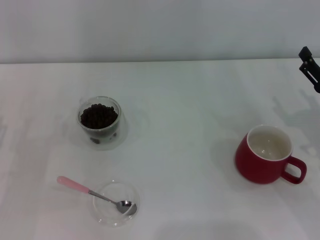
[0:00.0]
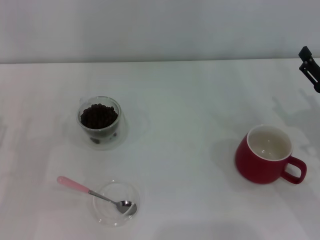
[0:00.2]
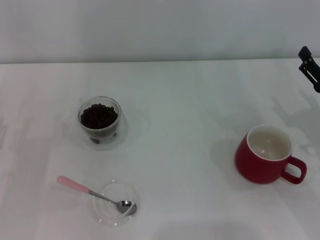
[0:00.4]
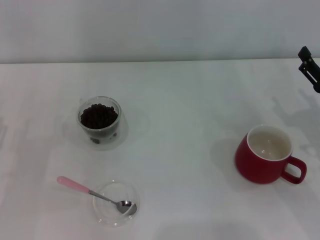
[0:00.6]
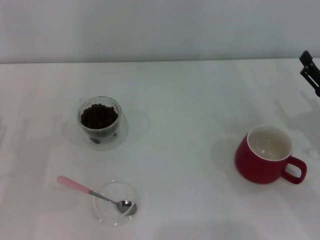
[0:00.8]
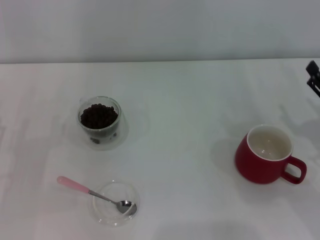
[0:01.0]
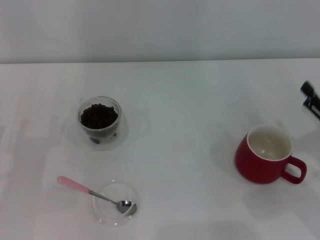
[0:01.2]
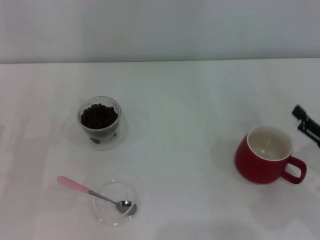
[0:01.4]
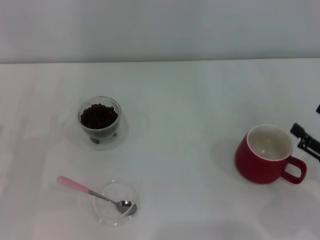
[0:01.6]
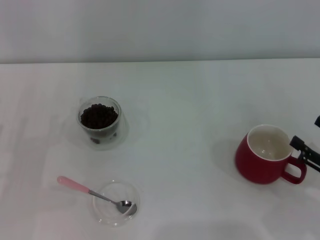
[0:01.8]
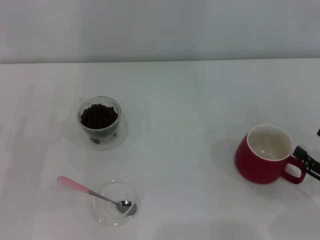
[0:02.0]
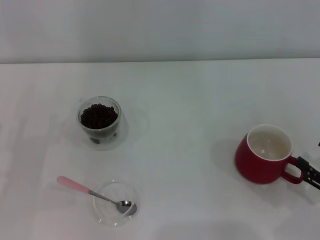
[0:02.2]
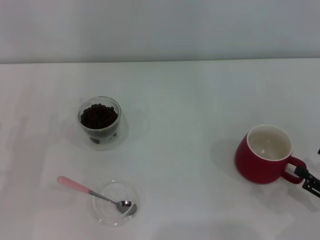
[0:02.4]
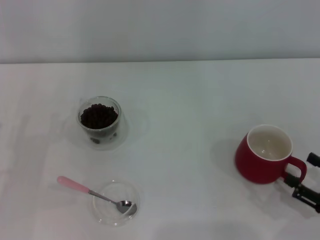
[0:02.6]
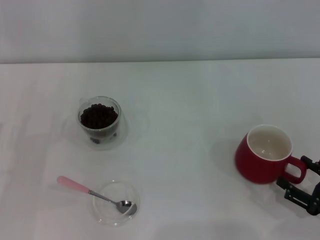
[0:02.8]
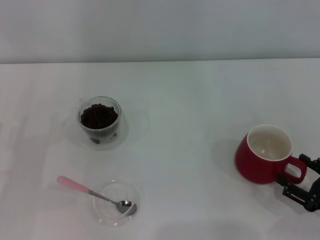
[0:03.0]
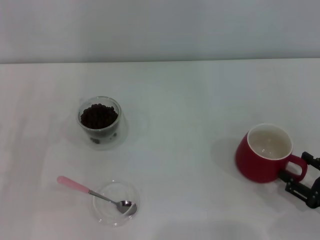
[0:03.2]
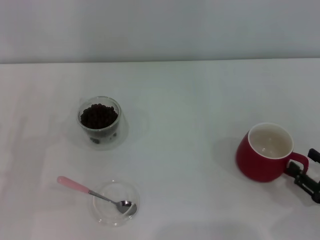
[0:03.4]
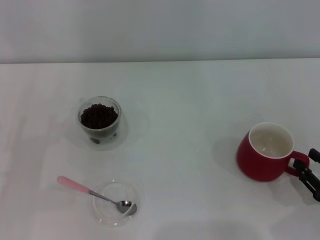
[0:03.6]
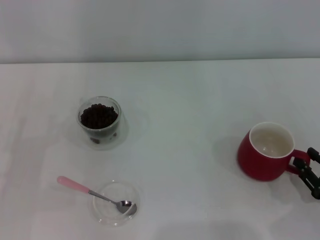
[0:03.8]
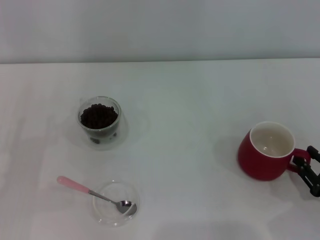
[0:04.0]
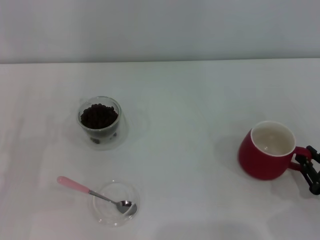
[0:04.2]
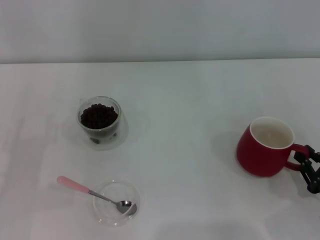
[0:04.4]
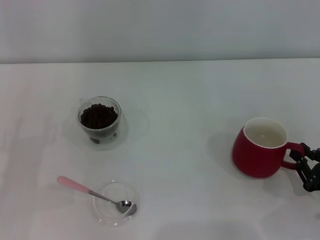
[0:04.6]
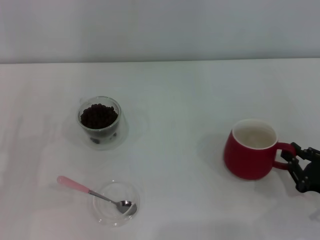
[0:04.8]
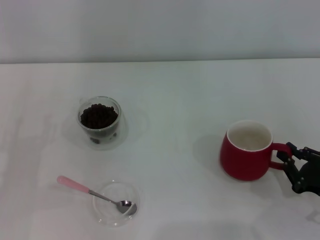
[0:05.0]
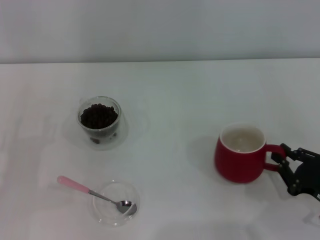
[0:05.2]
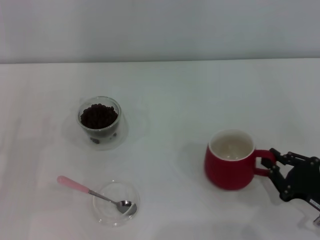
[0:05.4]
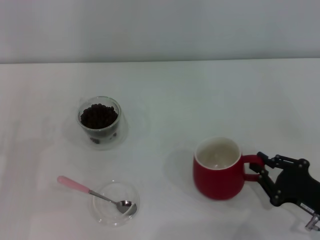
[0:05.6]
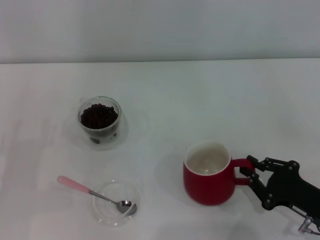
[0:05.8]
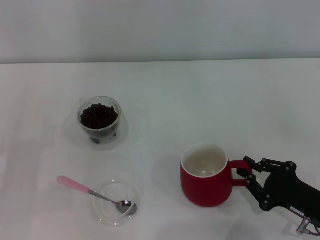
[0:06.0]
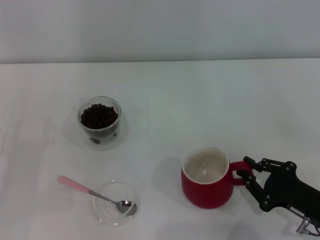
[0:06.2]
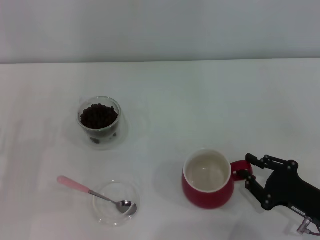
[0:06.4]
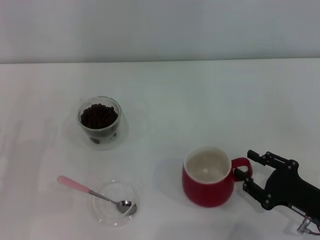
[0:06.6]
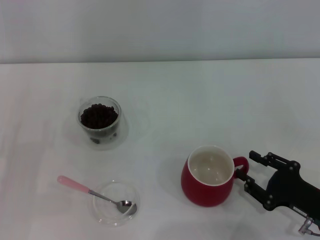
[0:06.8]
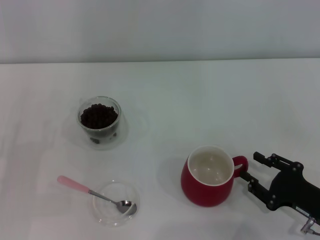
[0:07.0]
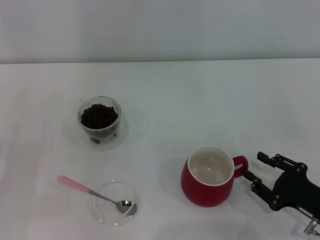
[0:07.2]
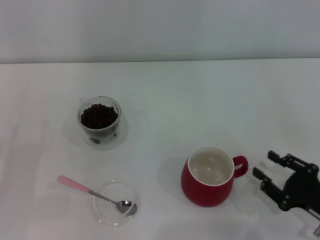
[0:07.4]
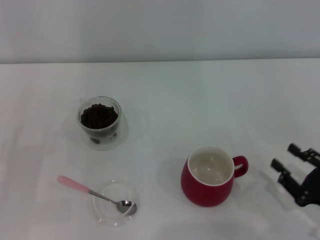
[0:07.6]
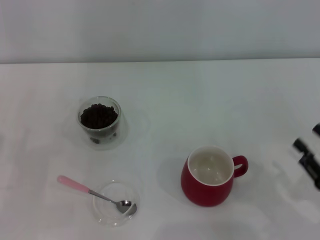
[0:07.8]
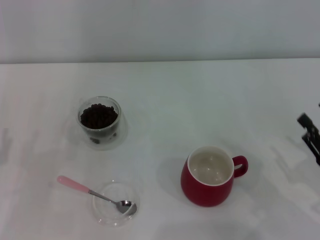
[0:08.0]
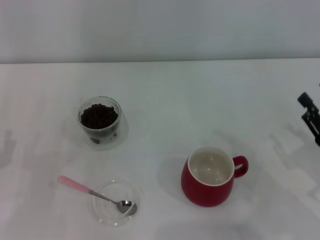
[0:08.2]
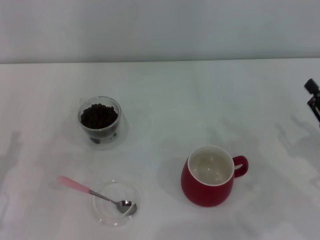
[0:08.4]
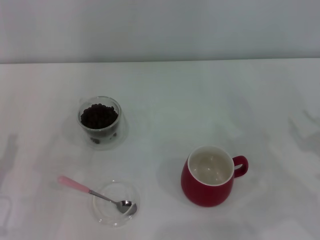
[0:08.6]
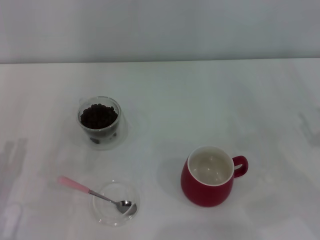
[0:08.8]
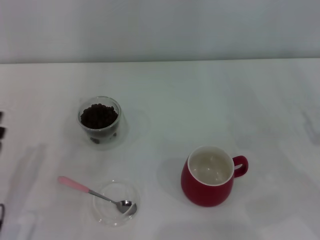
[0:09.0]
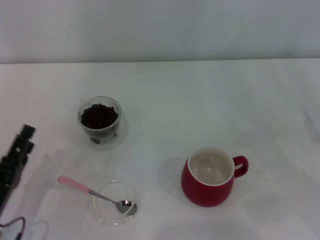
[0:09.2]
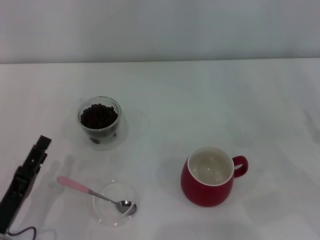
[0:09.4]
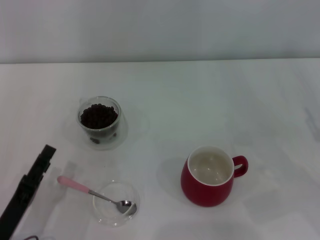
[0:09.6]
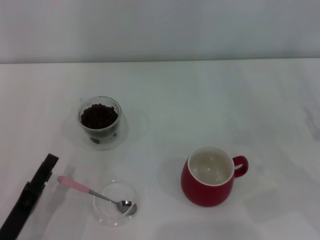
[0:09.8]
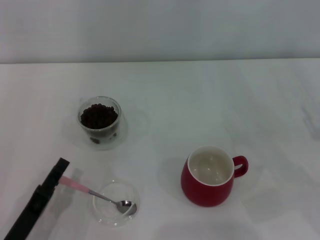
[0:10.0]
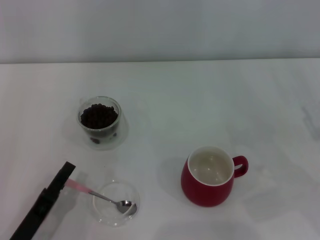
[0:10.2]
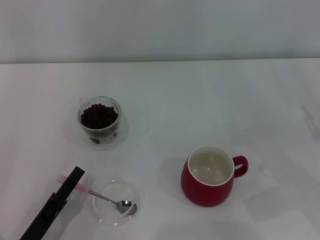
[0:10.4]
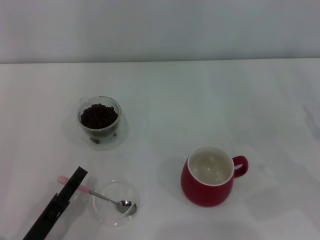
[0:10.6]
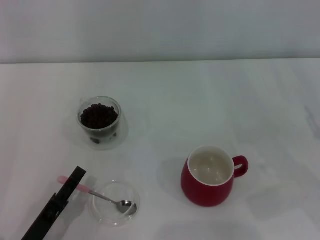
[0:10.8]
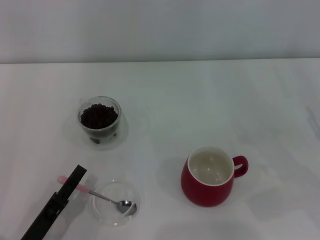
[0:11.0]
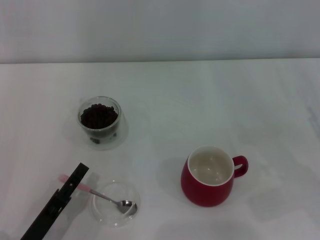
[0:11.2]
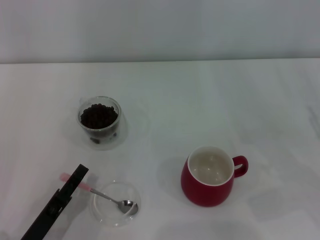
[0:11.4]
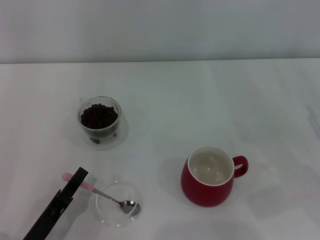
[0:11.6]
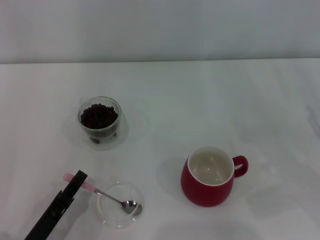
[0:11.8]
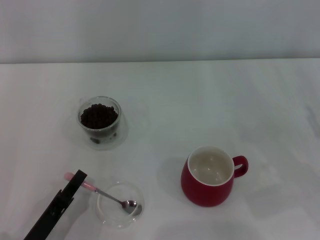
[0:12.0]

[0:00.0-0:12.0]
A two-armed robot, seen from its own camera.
Task of the whole recording: Use a pink spoon to take out the coffee beans from the glass and pour them into the red cup.
Step, 0:00.0 to 0:07.4: Move the cup to the center of view with the left gripper.
0:00.0 to 0:01.6: The right gripper travels backward by approximately 5 cm.
0:01.6 to 0:03.0: The right gripper ends up about 5 cm from where it was.
0:03.0 to 0:04.4: The right gripper closes.
0:04.4 to 0:06.0: The right gripper shifts roughly 5 cm to the left.
0:06.0 to 0:07.6: The right gripper opens.
0:07.6 to 0:09.0: The right gripper is displaced forward and upward by roughly 10 cm.
0:09.0 to 0:10.4: The left gripper shifts by some 5 cm.
0:10.4 to 0:12.0: The left gripper closes.

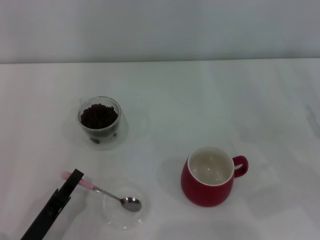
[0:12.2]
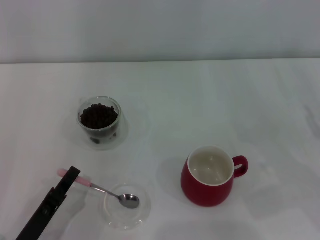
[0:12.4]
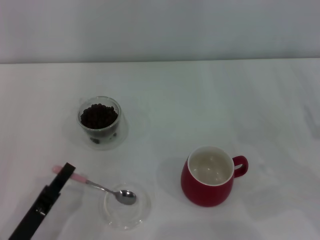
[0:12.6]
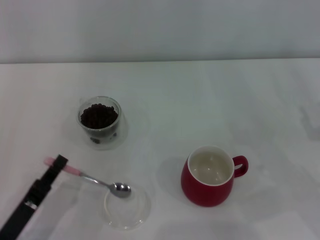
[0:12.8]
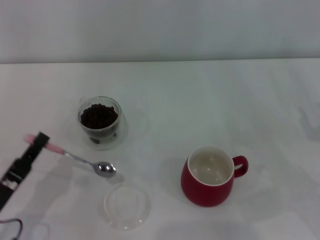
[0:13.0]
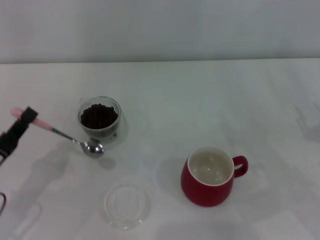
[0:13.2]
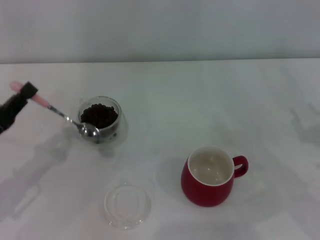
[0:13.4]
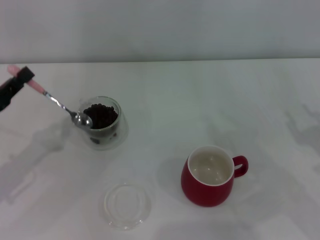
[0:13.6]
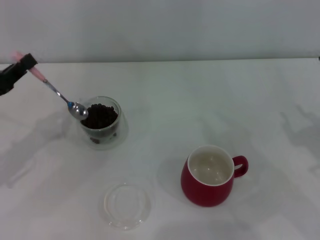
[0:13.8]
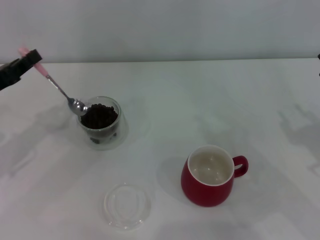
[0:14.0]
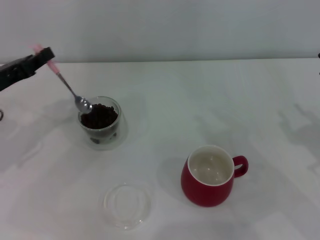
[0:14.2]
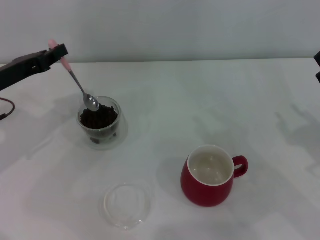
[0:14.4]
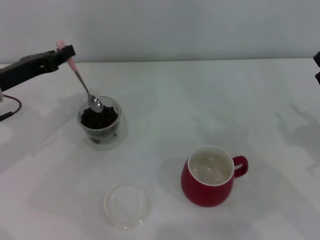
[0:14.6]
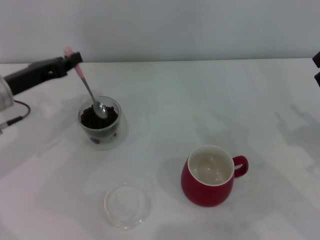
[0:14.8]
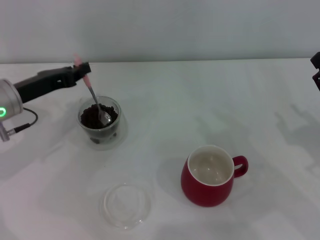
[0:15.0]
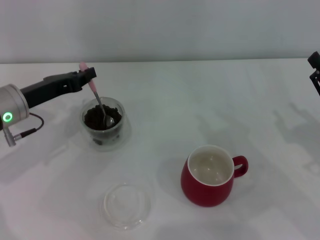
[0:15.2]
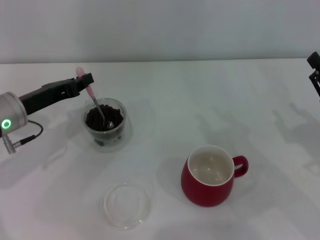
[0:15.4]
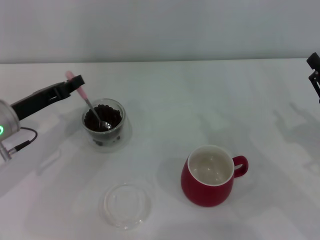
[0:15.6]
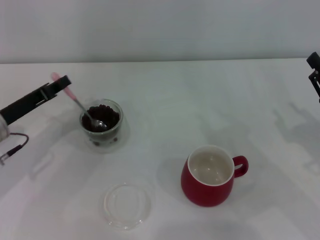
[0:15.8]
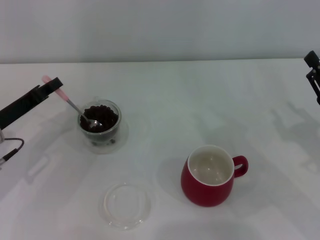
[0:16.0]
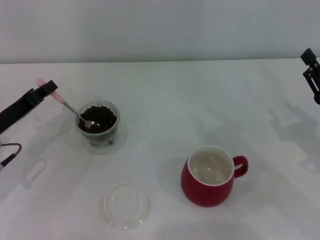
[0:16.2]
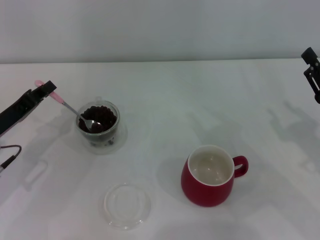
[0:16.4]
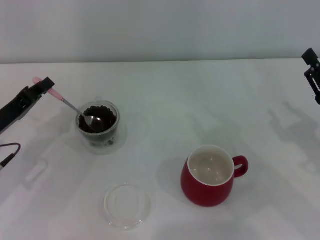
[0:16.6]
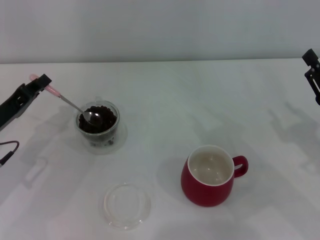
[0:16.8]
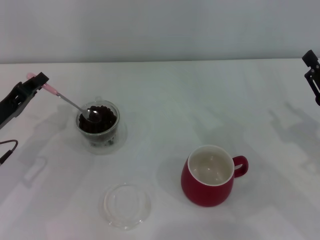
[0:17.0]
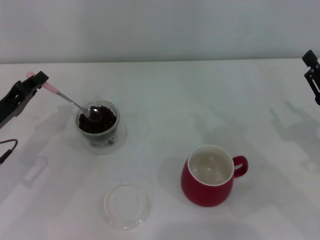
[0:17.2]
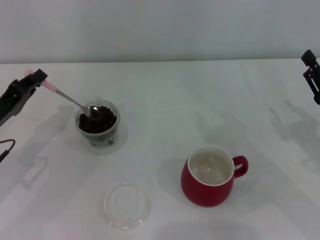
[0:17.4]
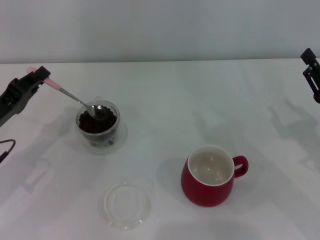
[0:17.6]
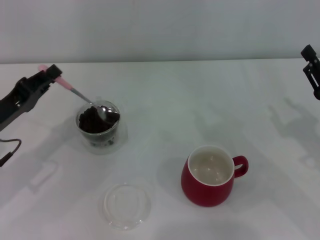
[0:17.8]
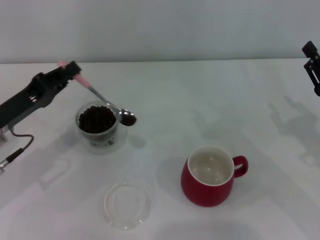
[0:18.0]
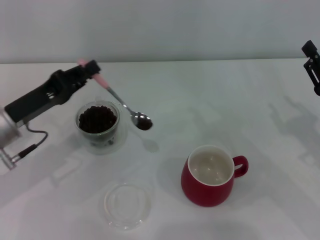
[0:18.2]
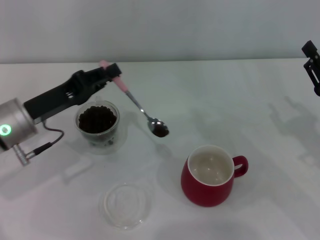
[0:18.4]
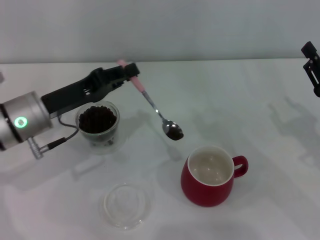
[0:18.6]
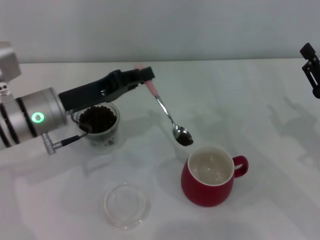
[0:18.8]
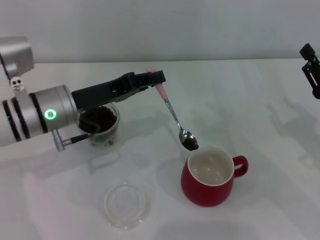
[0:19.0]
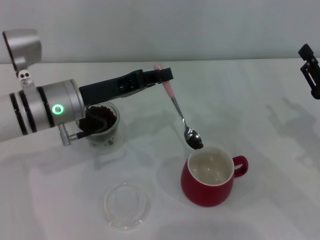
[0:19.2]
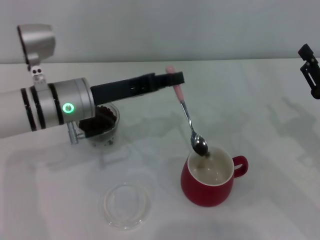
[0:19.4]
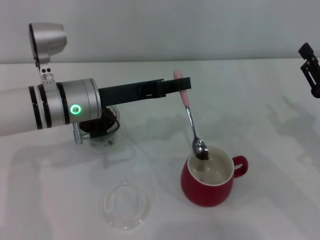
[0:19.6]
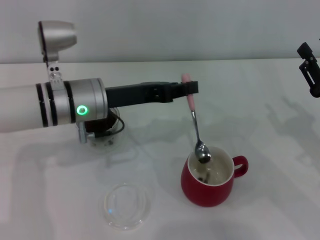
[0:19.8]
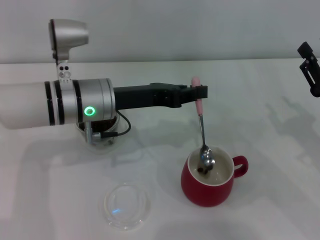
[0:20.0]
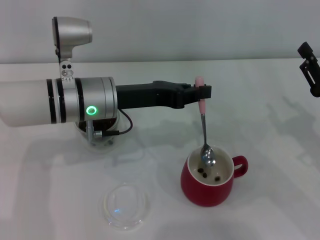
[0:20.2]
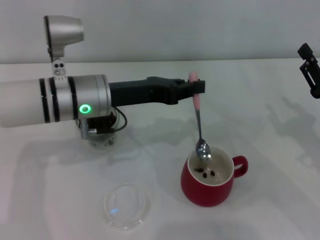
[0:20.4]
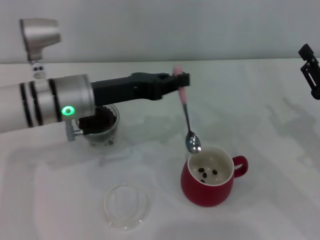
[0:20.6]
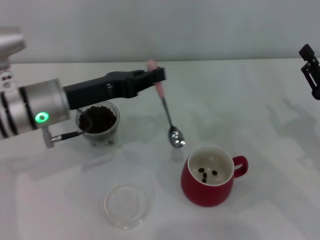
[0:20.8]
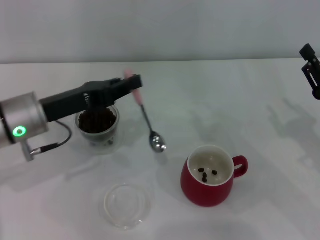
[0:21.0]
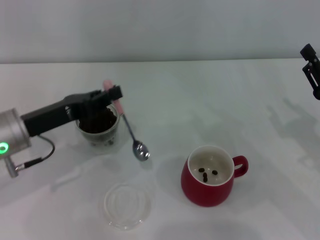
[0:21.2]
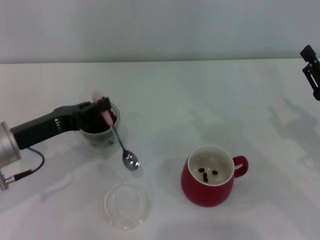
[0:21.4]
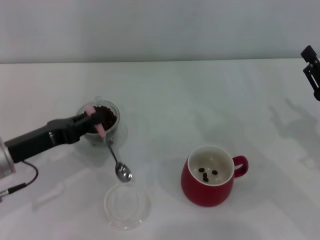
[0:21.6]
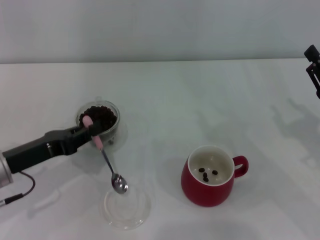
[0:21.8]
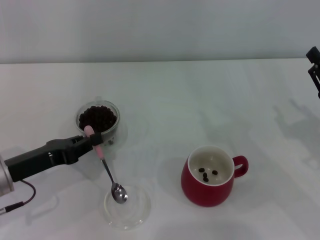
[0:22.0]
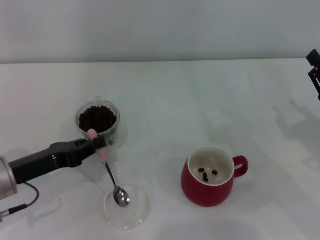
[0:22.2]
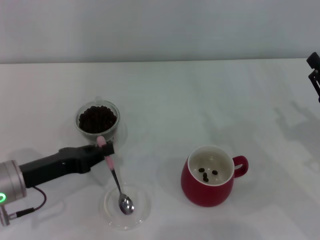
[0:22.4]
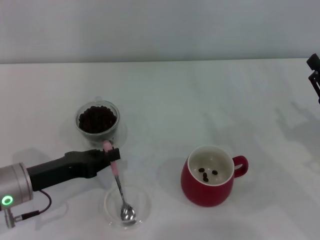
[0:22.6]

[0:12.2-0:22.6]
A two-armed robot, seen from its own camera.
Task of the whole recording: Use a pink spoon to take out the coffee beans from the glass and pour them into the red cup.
0:12.2 to 0:13.6: The left gripper heads forward, upward and to the left, covering about 20 cm.
0:13.6 to 0:15.2: The left gripper travels forward and to the right by approximately 10 cm.
0:15.2 to 0:16.6: The left gripper travels backward by roughly 5 cm.
0:16.6 to 0:18.2: The left gripper moves about 5 cm.
0:18.2 to 0:19.6: The left gripper shifts approximately 10 cm to the right.
0:19.6 to 0:21.2: The left gripper shifts roughly 10 cm to the left.
0:21.2 to 0:22.6: The left gripper is displaced downward by about 5 cm.
